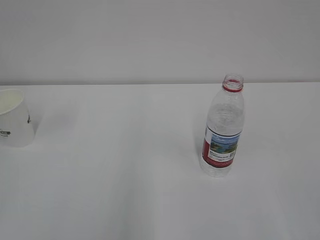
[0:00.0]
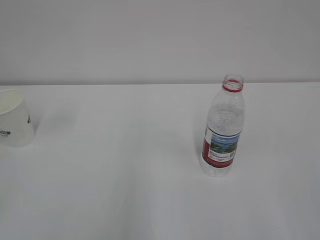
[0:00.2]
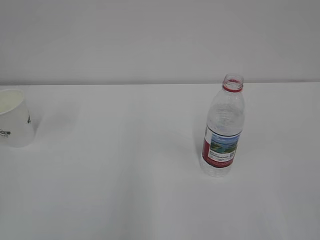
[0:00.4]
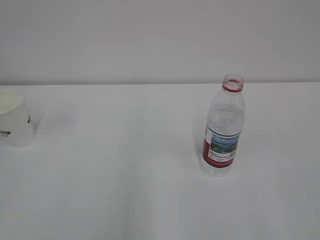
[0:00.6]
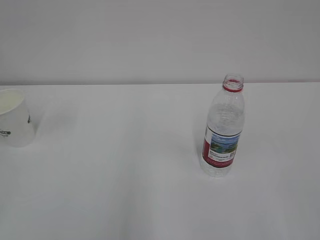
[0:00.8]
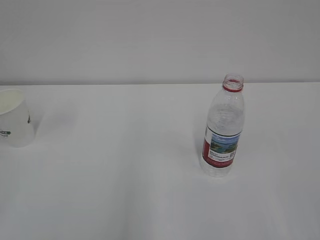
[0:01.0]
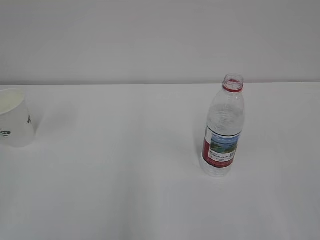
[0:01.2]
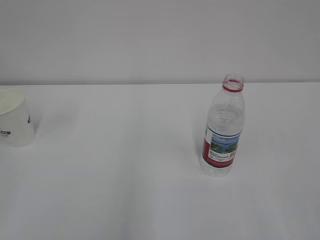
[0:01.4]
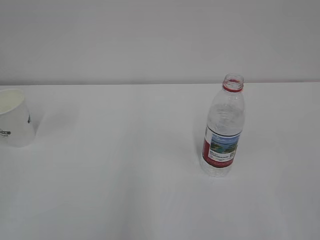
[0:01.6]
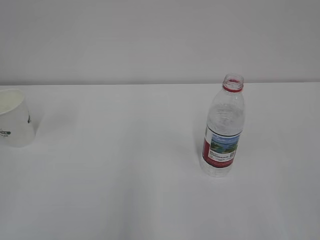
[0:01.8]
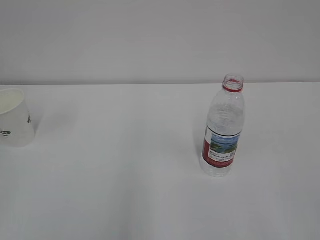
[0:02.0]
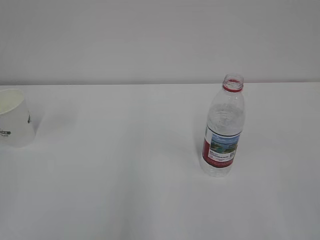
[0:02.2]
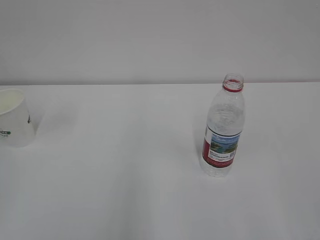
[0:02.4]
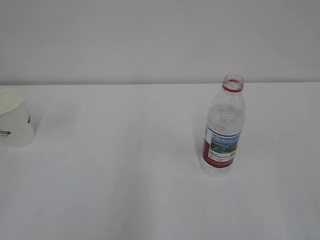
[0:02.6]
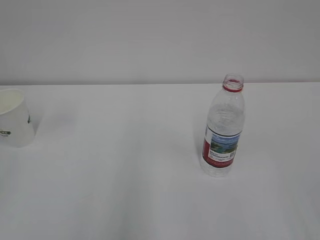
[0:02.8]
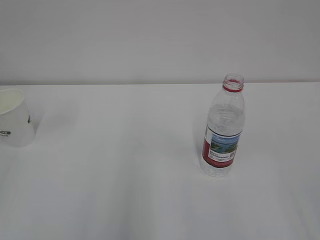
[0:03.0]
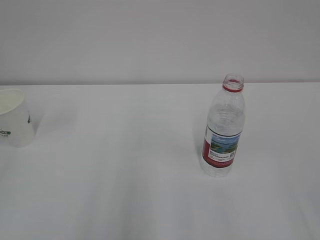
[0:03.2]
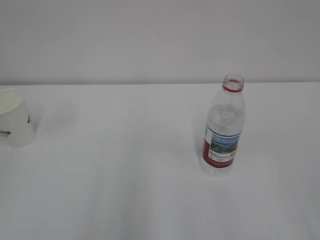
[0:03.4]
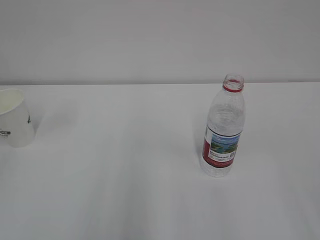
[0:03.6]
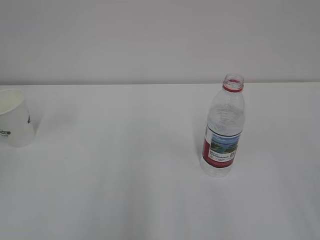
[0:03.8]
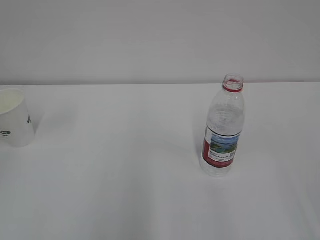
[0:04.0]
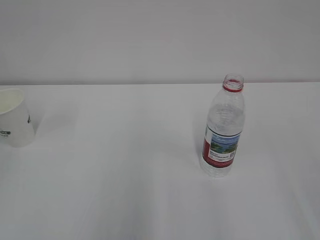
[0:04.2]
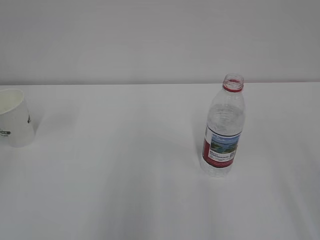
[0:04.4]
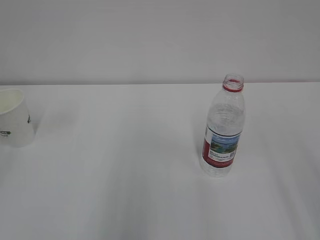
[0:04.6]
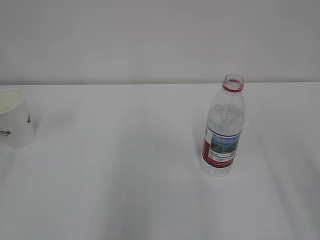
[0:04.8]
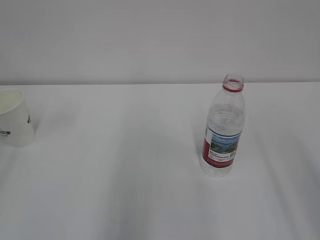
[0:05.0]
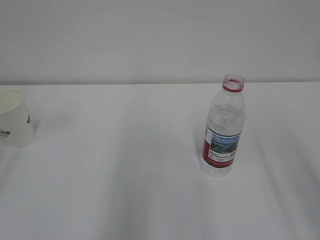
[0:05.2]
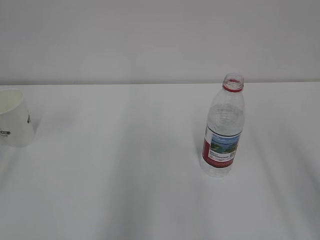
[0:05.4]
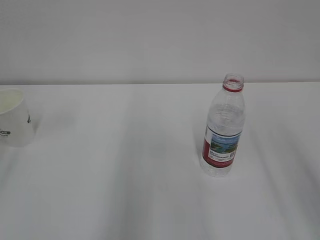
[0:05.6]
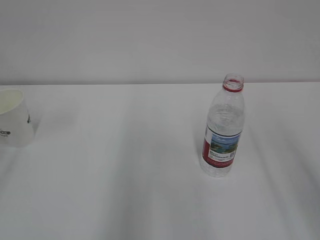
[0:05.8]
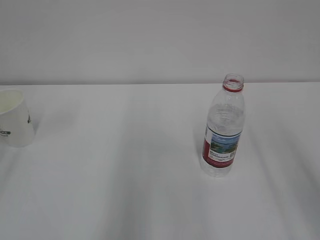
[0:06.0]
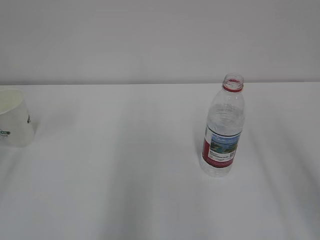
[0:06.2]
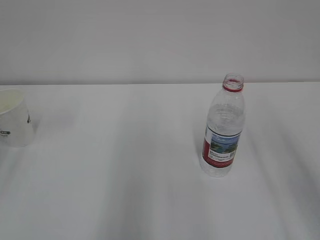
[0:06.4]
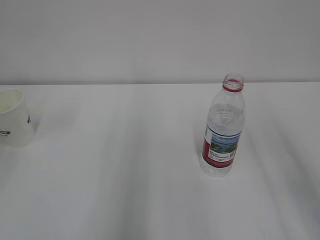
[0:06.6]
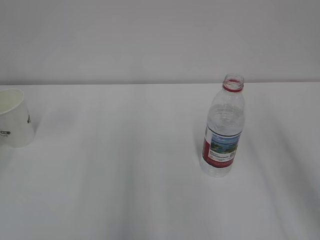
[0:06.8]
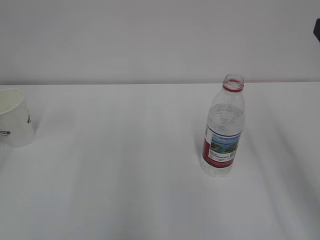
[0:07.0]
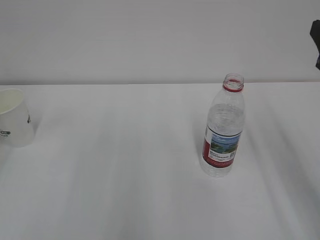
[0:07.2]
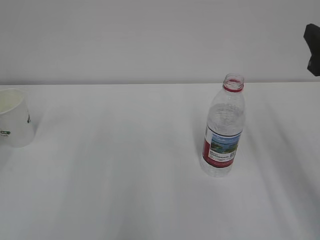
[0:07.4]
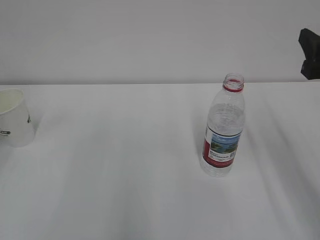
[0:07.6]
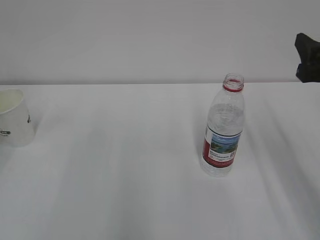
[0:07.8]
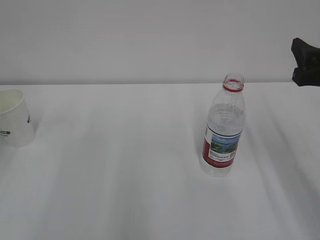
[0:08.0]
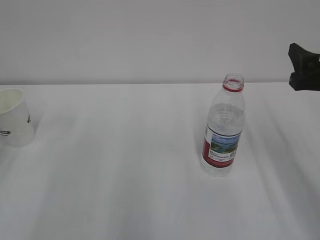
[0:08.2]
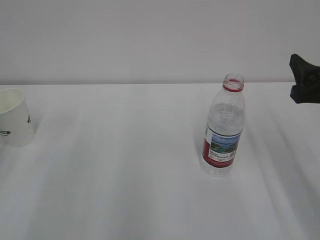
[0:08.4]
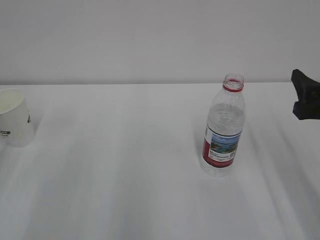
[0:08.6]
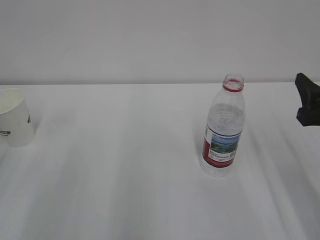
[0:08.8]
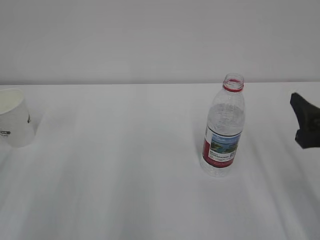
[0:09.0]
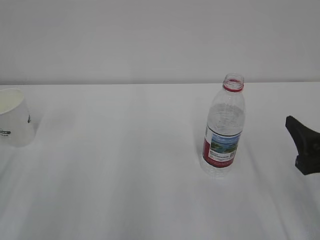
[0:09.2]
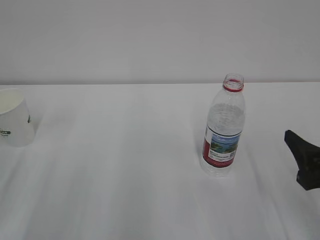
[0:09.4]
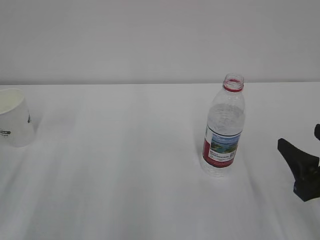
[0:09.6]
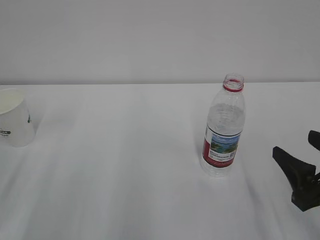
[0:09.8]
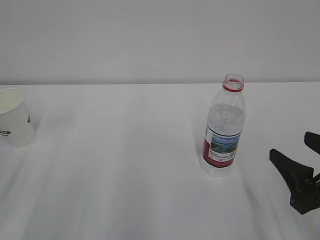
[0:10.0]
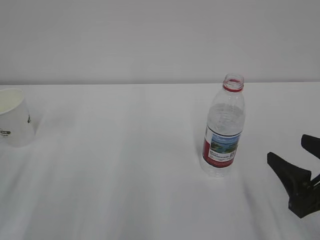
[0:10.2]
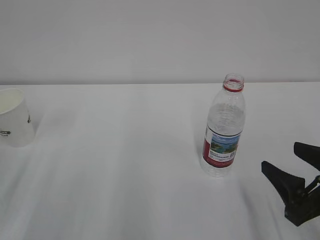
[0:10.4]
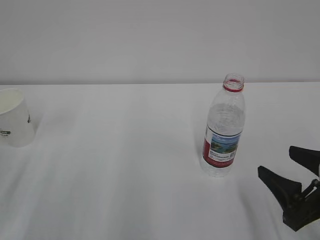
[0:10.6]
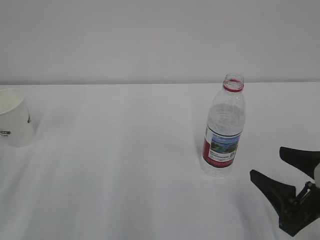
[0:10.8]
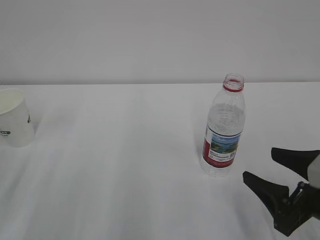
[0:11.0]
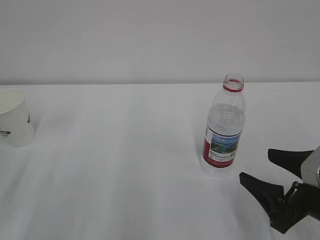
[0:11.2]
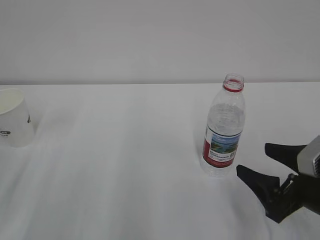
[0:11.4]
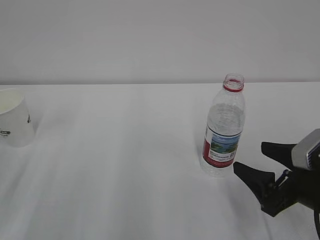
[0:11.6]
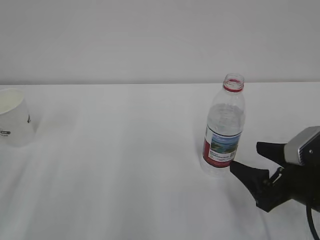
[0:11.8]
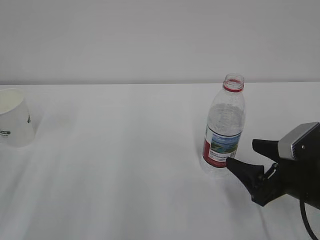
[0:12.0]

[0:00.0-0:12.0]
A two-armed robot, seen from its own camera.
0:06.0 to 0:07.6: The right gripper moves forward and downward, some 10 cm.
0:07.6 to 0:09.0: The right gripper shifts some 10 cm downward.
0:09.0 to 0:10.4: The right gripper goes approximately 5 cm backward.
0:10.4 to 0:12.0: The right gripper travels forward by about 5 cm.

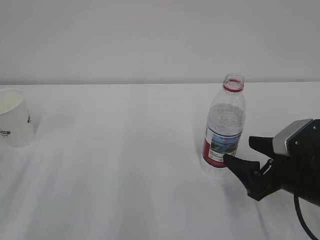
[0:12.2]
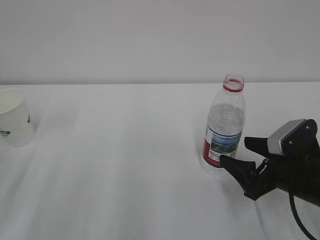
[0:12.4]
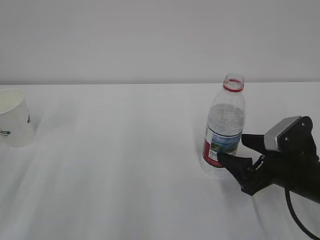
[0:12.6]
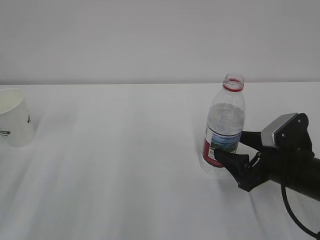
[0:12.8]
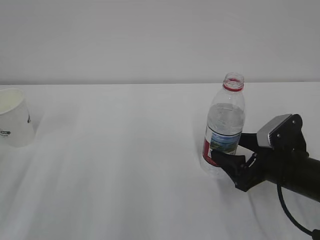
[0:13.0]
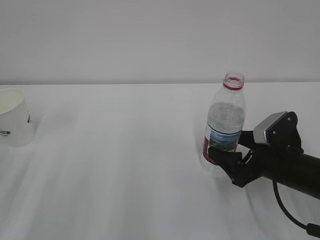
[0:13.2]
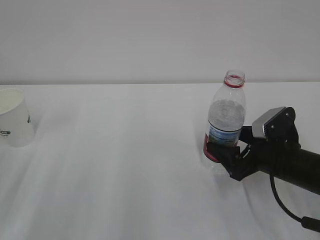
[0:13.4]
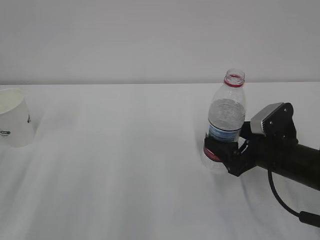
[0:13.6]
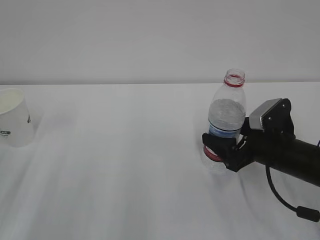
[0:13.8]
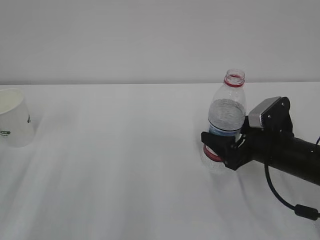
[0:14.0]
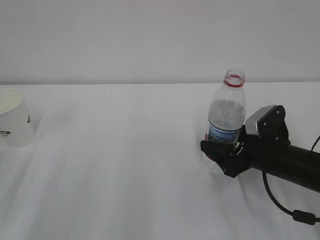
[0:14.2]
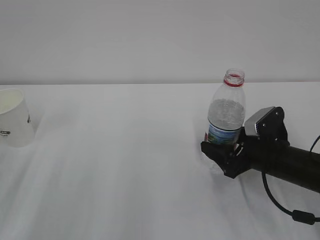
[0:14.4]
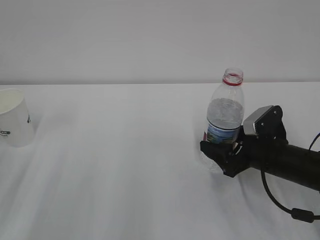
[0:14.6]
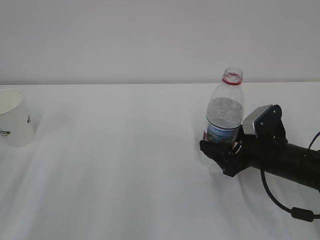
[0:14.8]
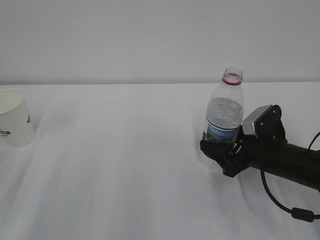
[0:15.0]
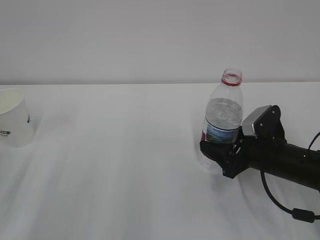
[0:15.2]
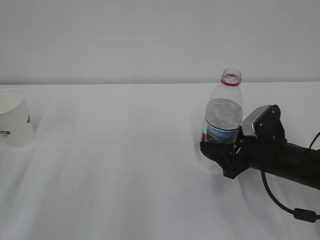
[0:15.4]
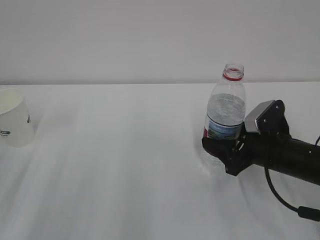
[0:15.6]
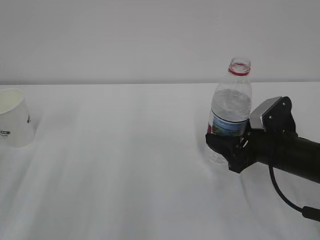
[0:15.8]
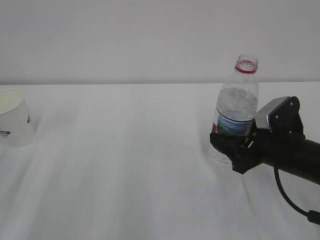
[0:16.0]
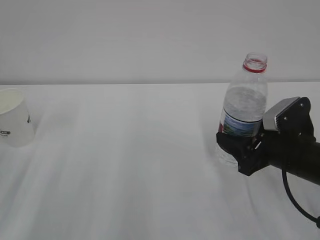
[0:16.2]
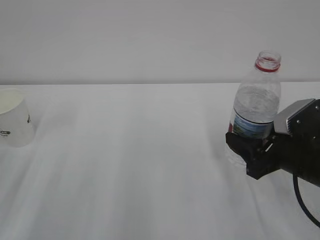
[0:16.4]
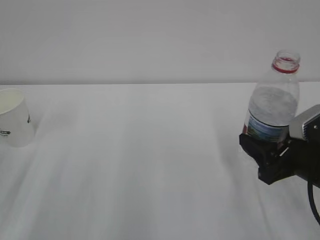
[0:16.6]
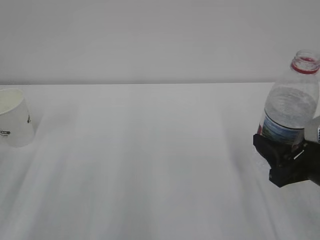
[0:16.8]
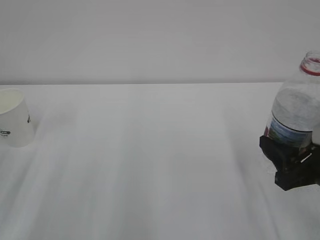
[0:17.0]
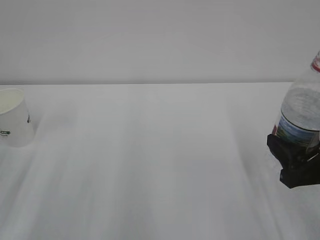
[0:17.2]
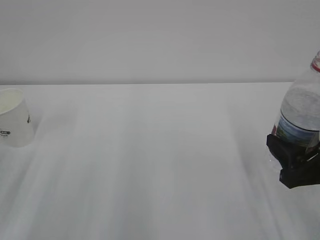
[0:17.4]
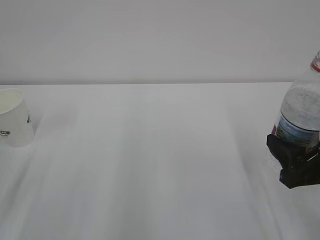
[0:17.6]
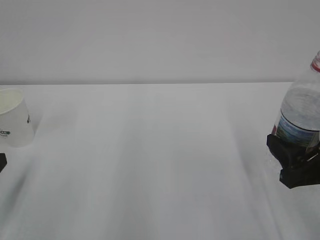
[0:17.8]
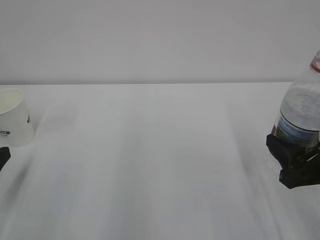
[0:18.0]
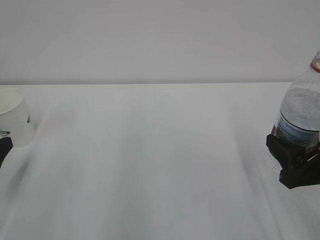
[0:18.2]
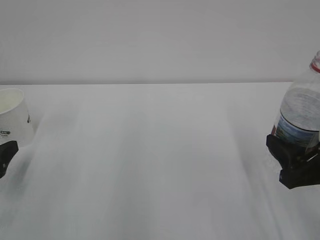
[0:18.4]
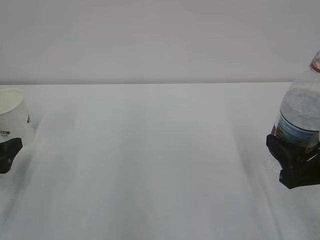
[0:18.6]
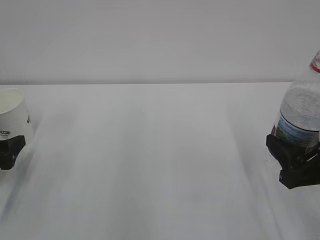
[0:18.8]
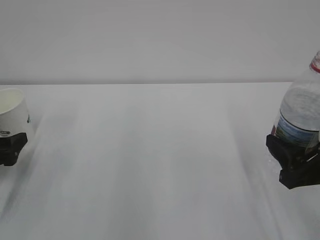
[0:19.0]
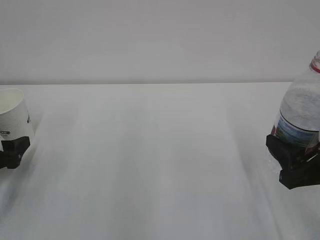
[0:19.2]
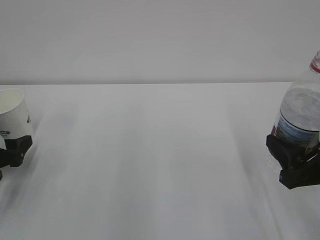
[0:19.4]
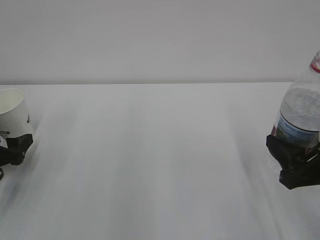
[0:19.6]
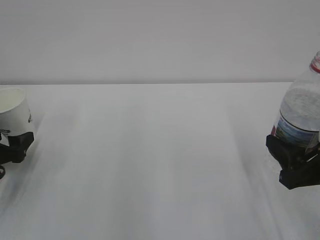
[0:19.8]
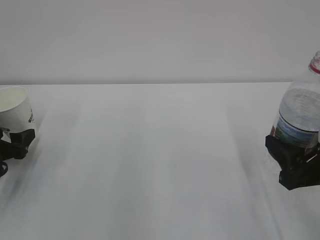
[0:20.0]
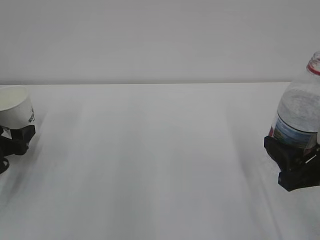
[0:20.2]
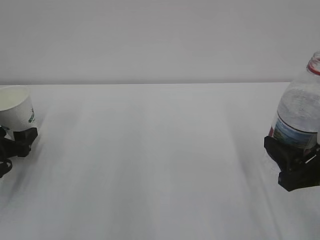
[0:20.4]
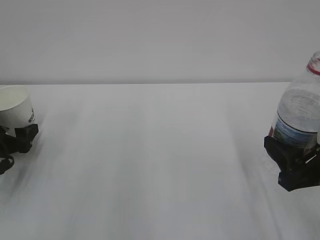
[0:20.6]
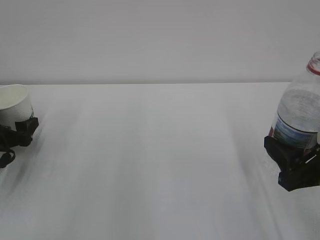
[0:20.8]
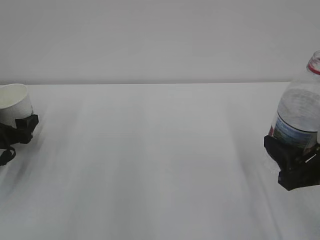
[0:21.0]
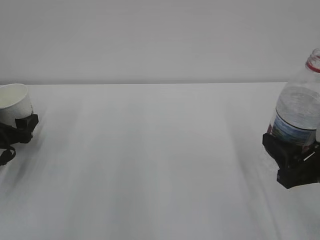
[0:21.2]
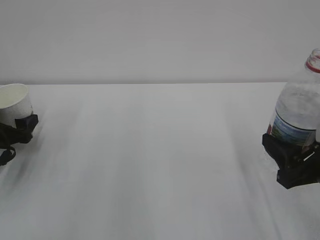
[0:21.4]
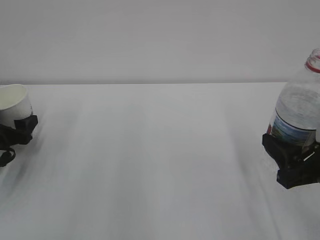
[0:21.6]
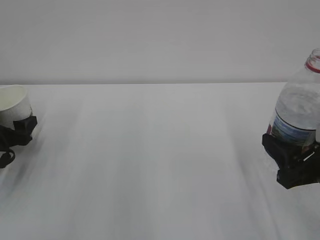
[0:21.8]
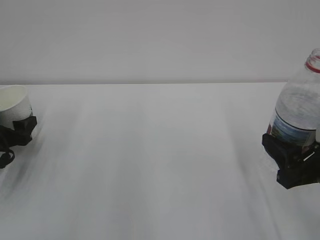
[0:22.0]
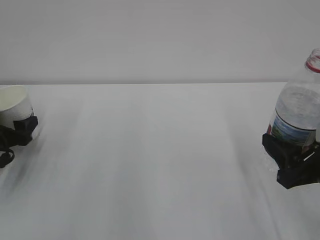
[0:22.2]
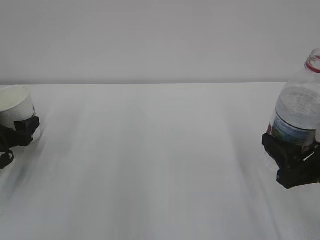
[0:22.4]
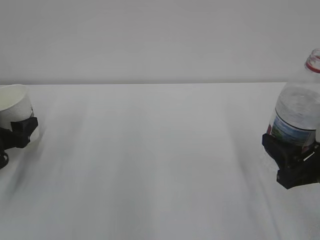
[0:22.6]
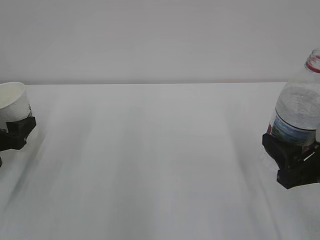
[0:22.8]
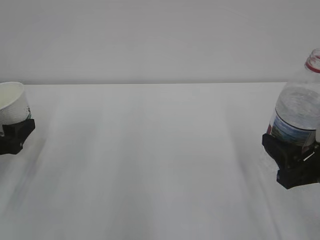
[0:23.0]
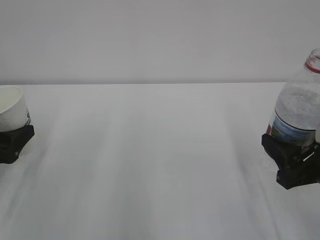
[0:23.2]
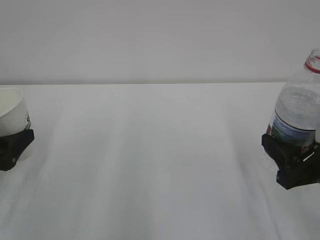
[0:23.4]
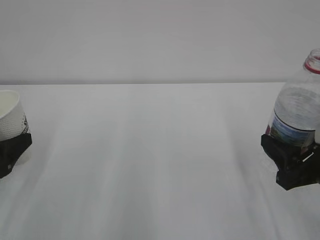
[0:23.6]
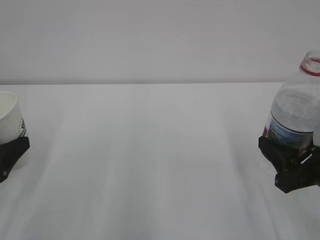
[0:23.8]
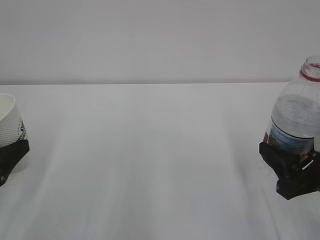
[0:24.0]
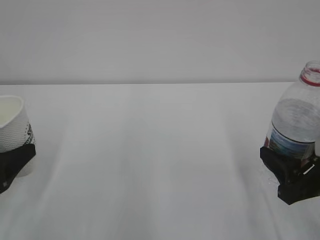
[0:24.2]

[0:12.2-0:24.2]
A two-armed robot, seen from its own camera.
0:12.2 to 0:13.8: The right gripper is displaced forward by some 5 cm.
0:13.8 to 0:15.2: The right gripper closes.
0:15.2 to 0:16.6: The right gripper heads backward and upward, covering some 10 cm.
0:18.2 to 0:19.8: The left gripper travels forward and downward by some 10 cm.
0:19.8 to 0:21.2: There are only small adjustments of the grippers.
0:21.2 to 0:22.6: The left gripper closes its fingers.
0:22.6 to 0:24.2: The left gripper travels backward and upward by some 15 cm.
